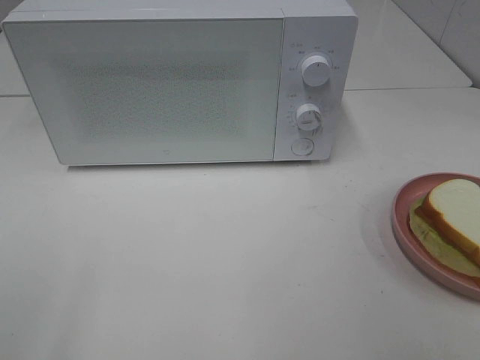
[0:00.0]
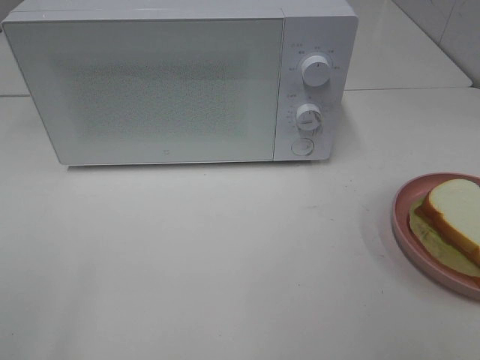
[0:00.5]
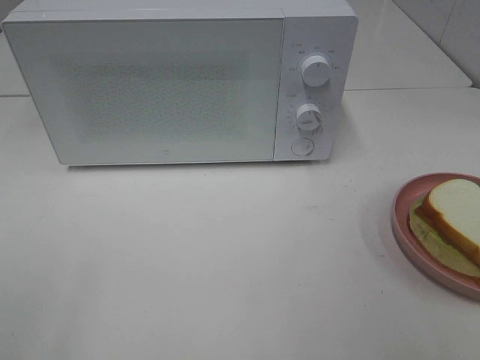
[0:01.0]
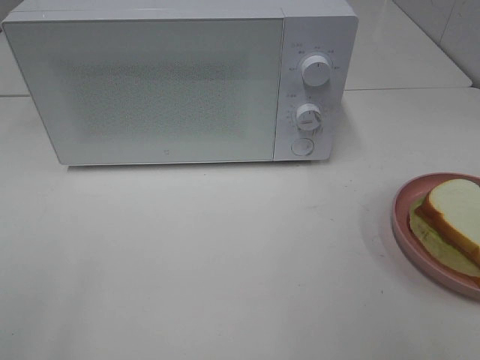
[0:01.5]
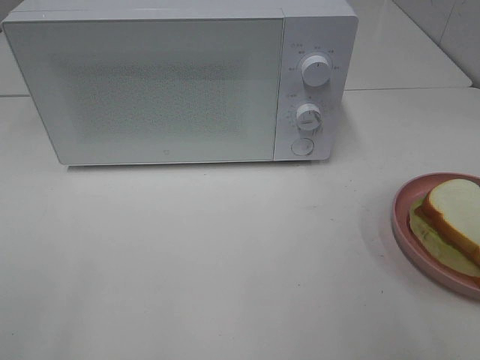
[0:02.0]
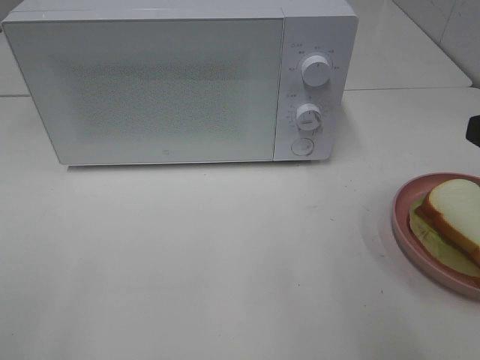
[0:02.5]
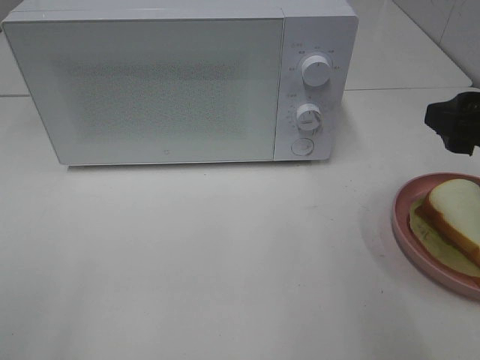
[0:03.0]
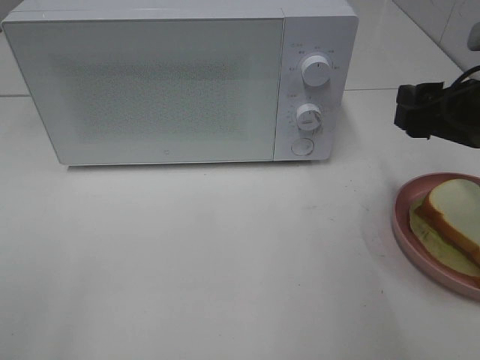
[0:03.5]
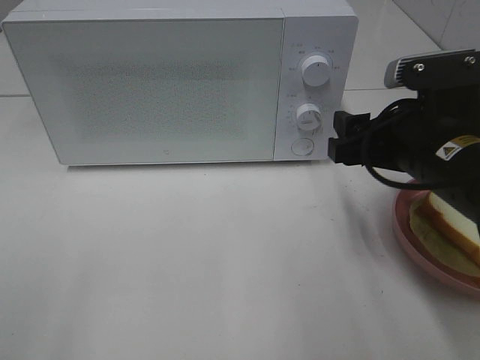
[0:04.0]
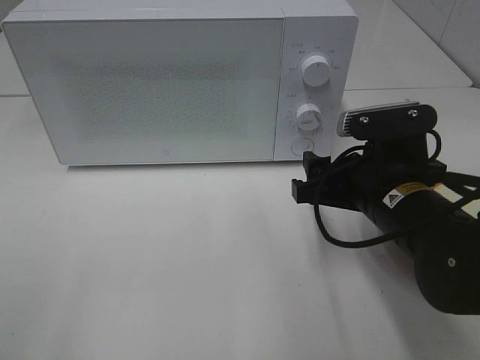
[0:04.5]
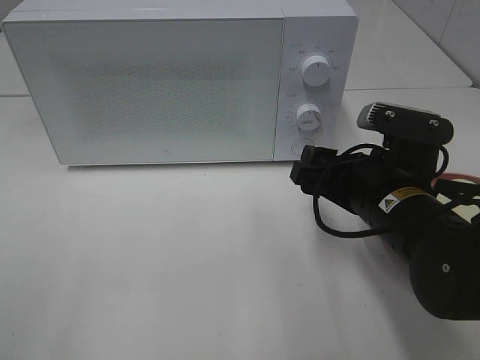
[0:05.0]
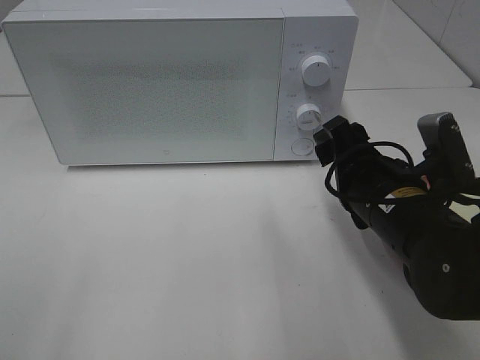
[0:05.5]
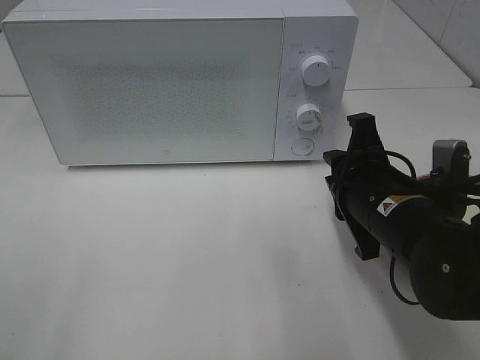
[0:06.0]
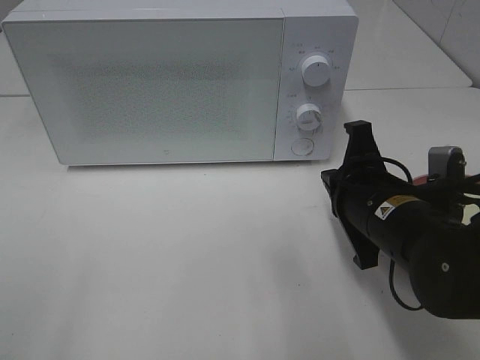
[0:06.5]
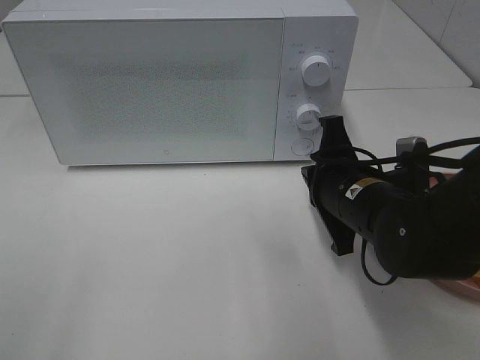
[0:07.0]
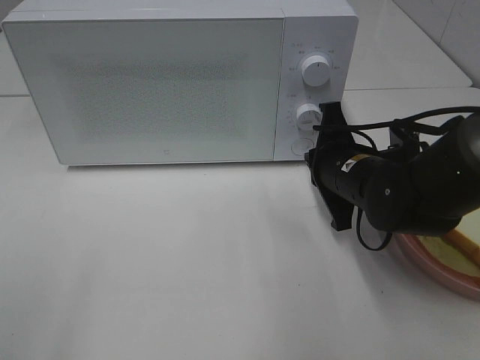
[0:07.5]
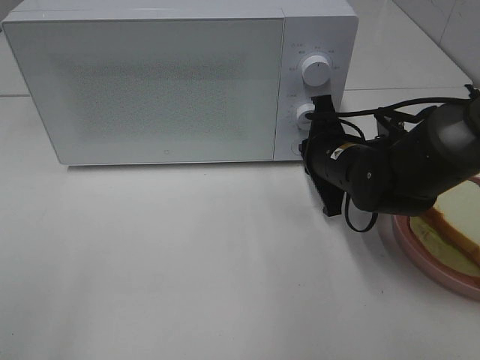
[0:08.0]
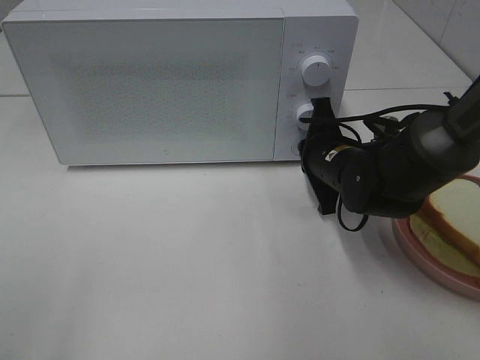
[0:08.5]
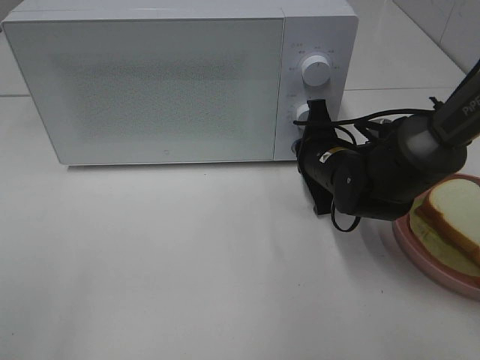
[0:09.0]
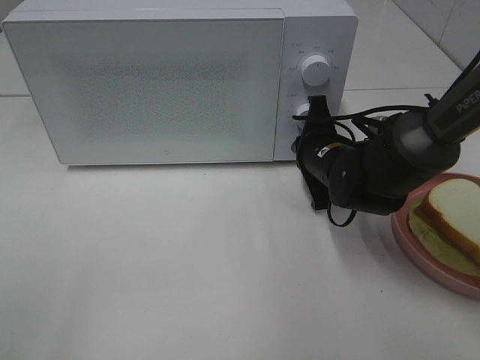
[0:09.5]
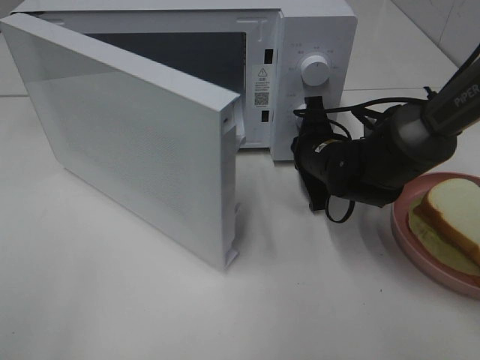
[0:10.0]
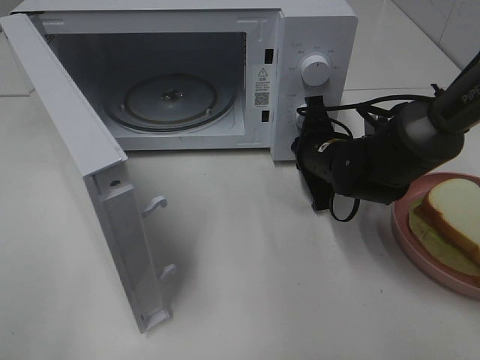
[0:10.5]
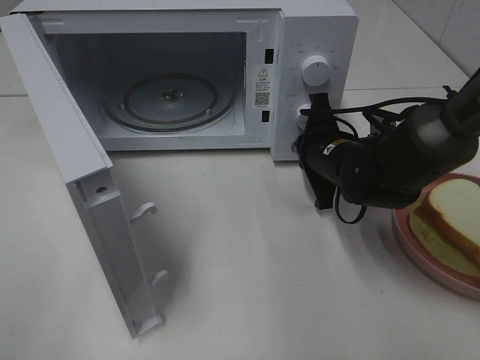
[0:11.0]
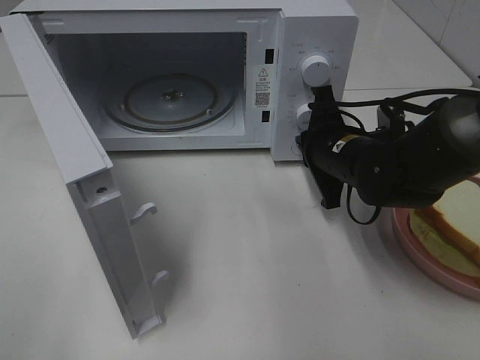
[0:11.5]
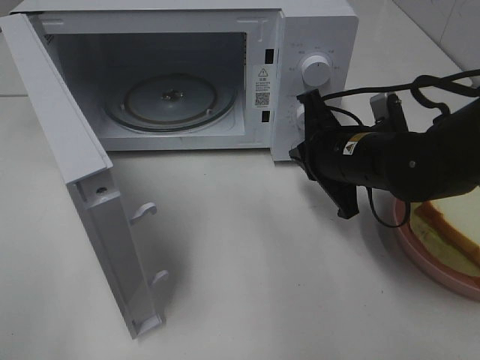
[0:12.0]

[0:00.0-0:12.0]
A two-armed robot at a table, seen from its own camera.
Task of the whole recording: Heat Sandwich.
Step, 0:00.0 to 0:11.0: Right hand: press the switch.
0:02.0 to 0:04.0: The right gripper moves forward, downward and to the left, approximately 20 cm.
0:04.0 to 0:06.0: The right gripper moves roughly 5 cm, and closes its fingers.
0:06.0 to 0:08.0: The right gripper is displaced forward by approximately 10 cm, and closes its fingers.
0:10.0 to 0:12.0: The right gripper shifts roughly 10 cm backward and upward.

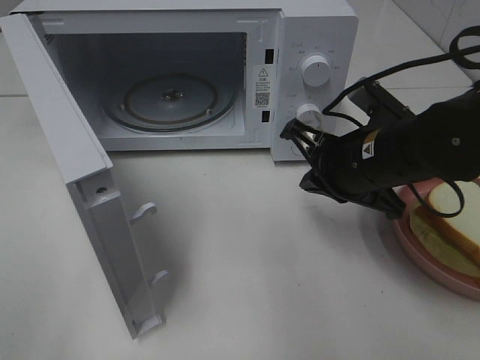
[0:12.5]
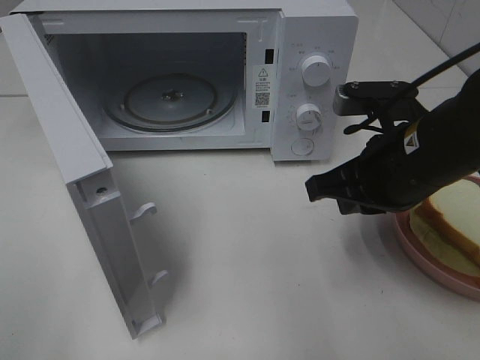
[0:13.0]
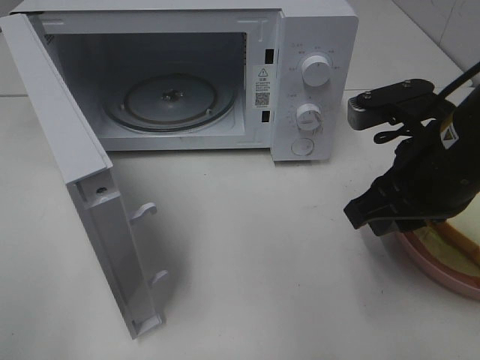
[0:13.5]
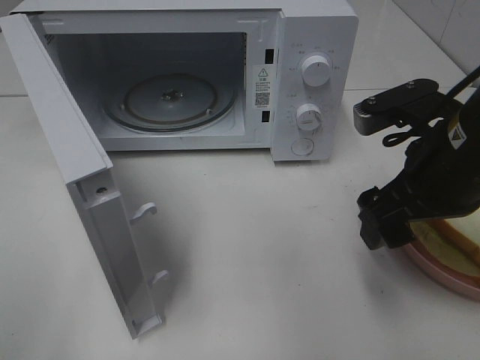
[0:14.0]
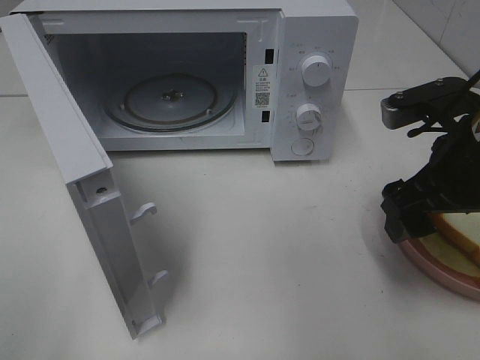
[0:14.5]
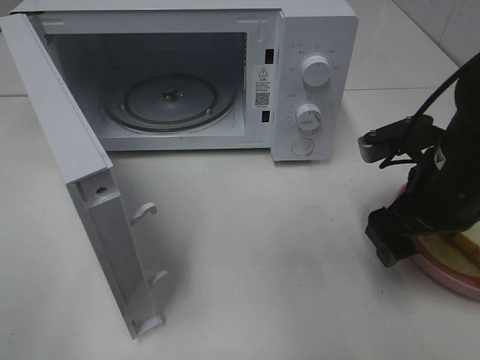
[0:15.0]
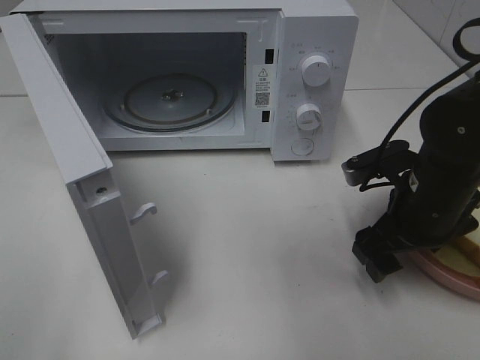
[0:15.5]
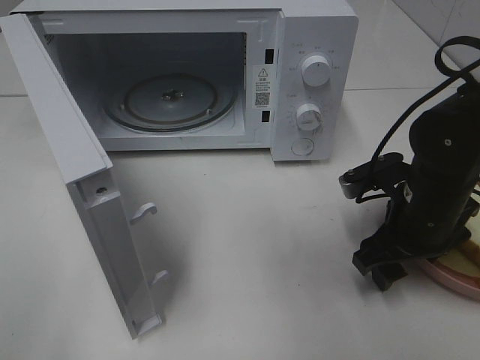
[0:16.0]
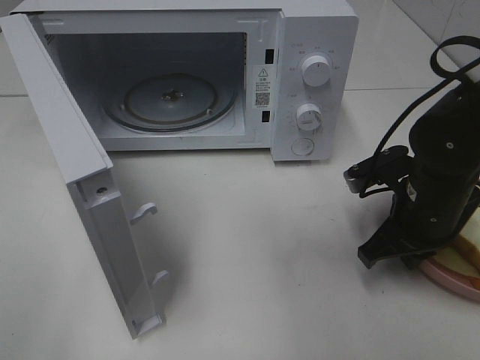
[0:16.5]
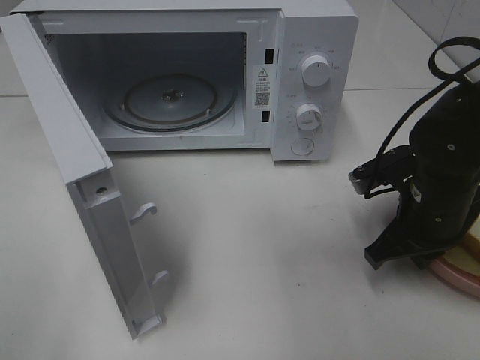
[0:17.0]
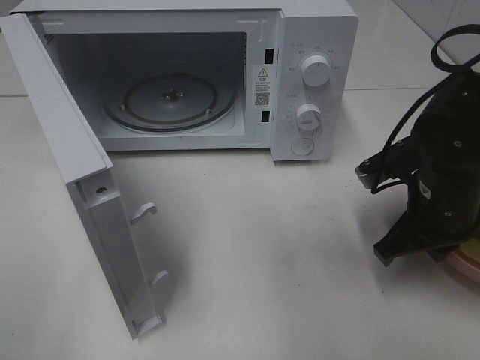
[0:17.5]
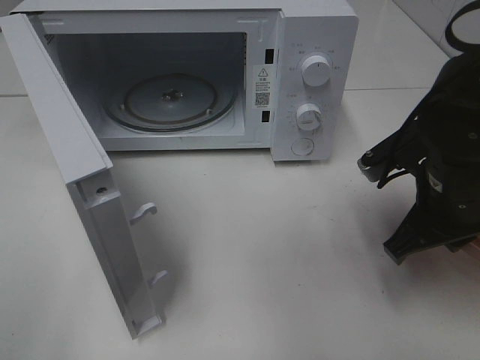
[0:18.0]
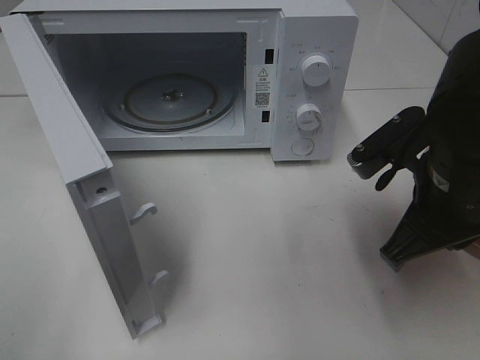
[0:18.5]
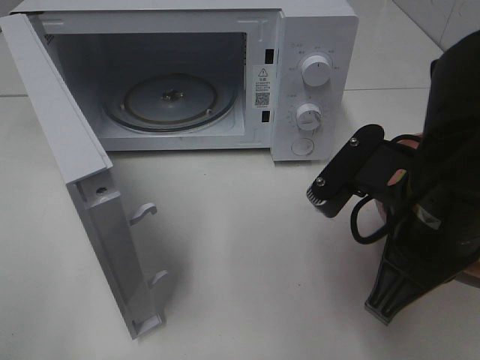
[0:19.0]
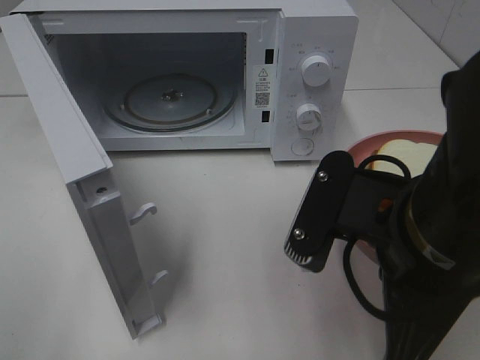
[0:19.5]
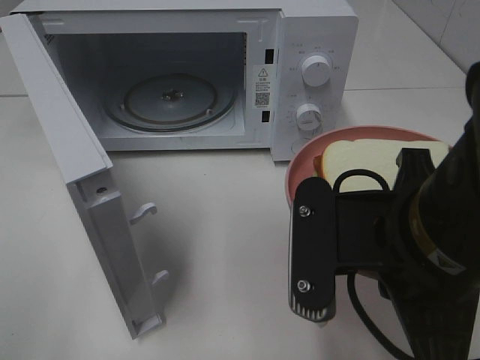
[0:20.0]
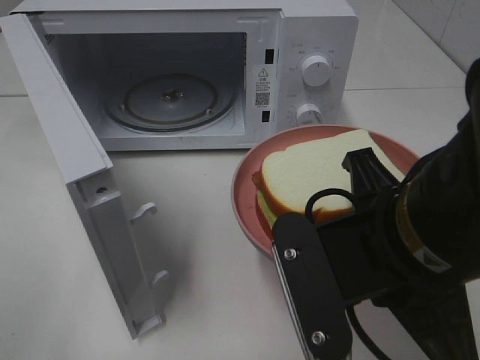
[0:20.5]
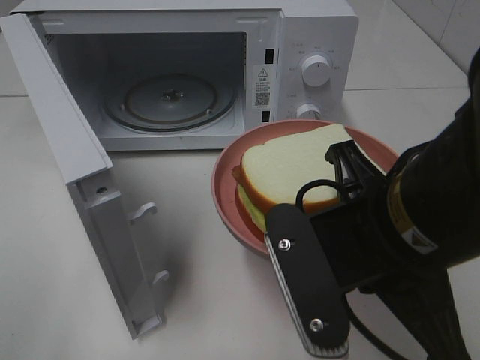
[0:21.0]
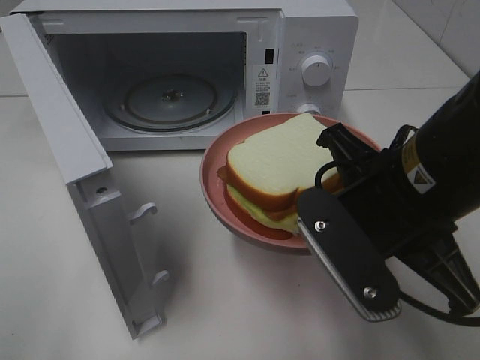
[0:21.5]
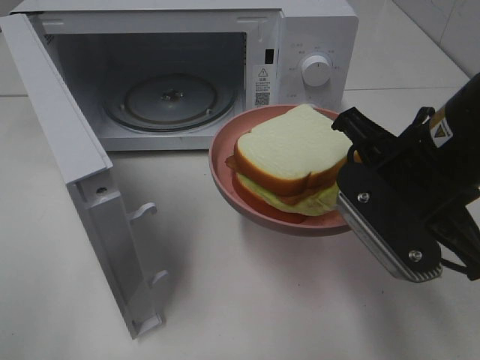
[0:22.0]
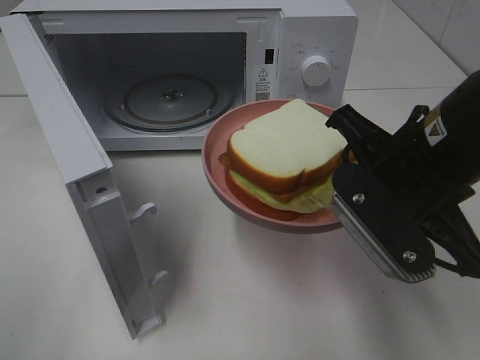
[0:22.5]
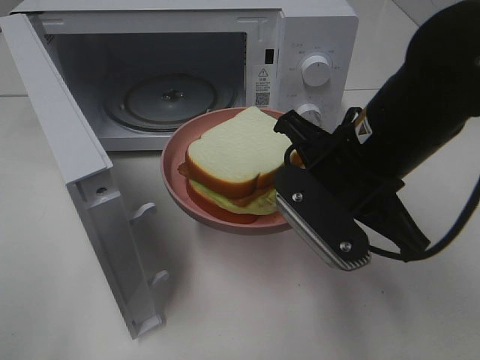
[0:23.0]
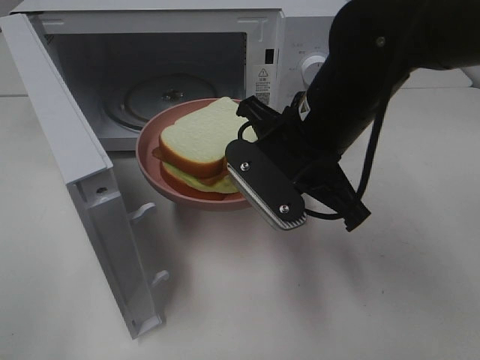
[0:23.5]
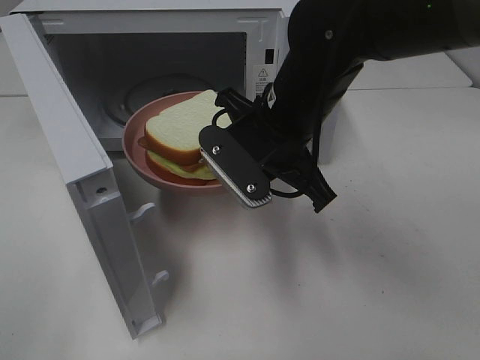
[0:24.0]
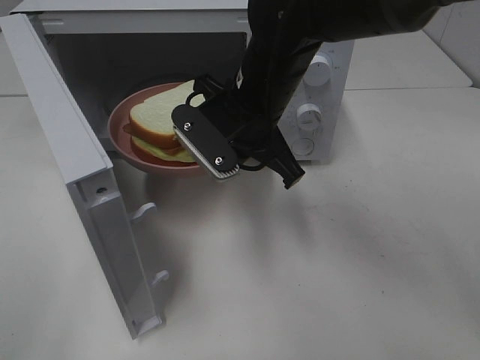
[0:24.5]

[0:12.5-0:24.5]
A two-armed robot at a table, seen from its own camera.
Task of the whole recording: Heat Sandwich.
Step, 0:12.5 to 0:16.5: Right hand: grab the plate with the sandwich.
0:12.5 to 0:14.5: The right gripper heads to the right and upward, covering about 10 cm, and opens up.
0:14.5 to 0:16.5: The right gripper heads downward, covering about 10 cm, and closes its fingers.
0:16.5 to 0:18.5: The right gripper is displaced upward and backward by approximately 10 cm.
0:18.5 to 0:20.5: The right gripper shifts some 10 cm backward and to the left.
0:20.5 to 0:22.5: The right gripper goes some 10 cm forward.
0:22.5 to 0:24.5: The right gripper moves forward and to the left, approximately 15 cm.

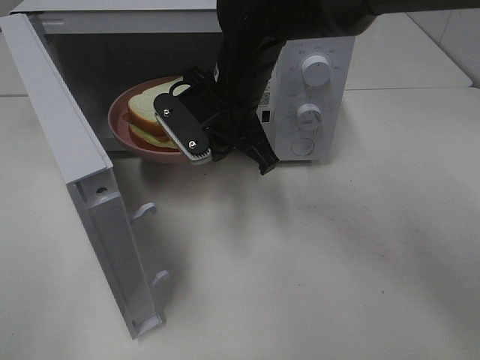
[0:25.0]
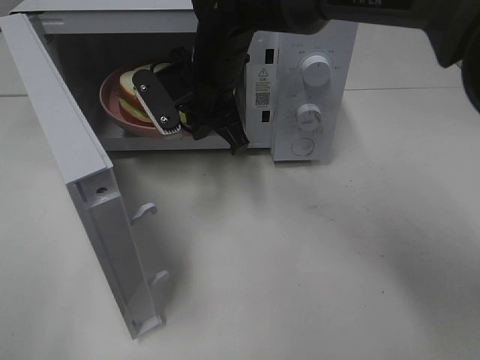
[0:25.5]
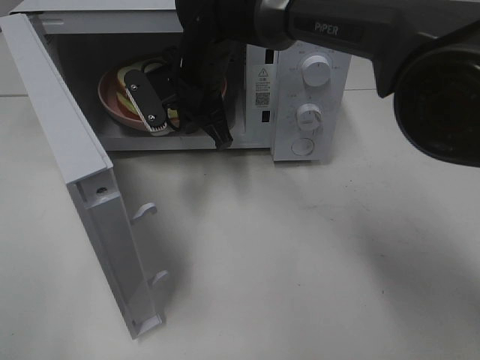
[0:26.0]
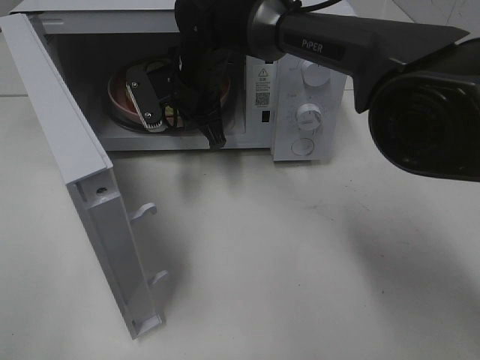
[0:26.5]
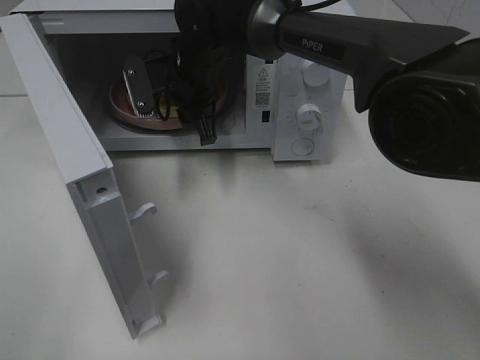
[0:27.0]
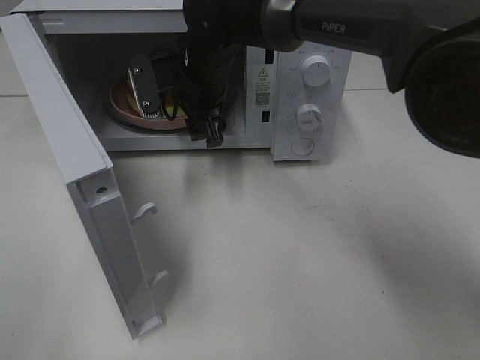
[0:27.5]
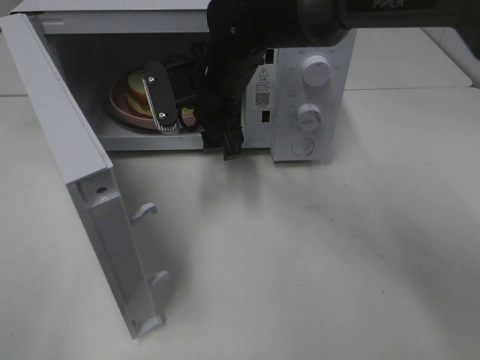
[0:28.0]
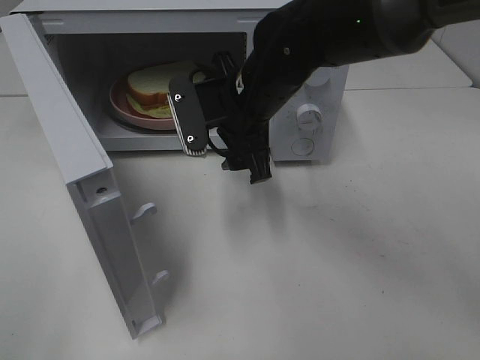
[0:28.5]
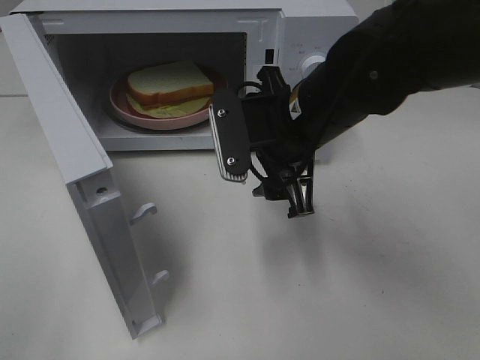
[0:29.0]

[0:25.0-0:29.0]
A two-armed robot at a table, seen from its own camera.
Task of the whole recording: Heat Sandwich.
Step, 0:25.0 to 0:27.5: Right hand: place the plate in the microwave.
0:25.0 to 0:27.0: The right gripper moves forward, some 10 cm, and opens up.
0:27.0 to 0:29.0: The right gripper moves backward and to the right, approximately 20 cm.
